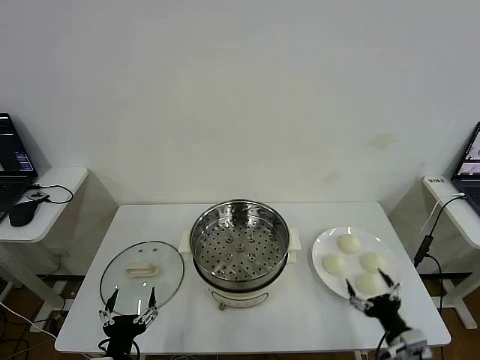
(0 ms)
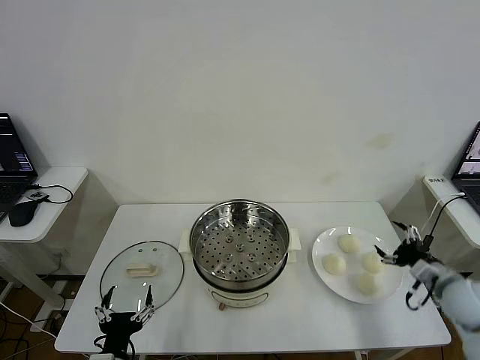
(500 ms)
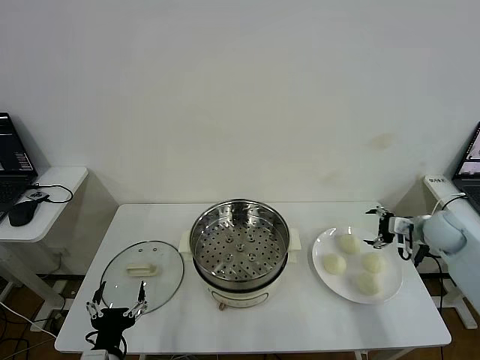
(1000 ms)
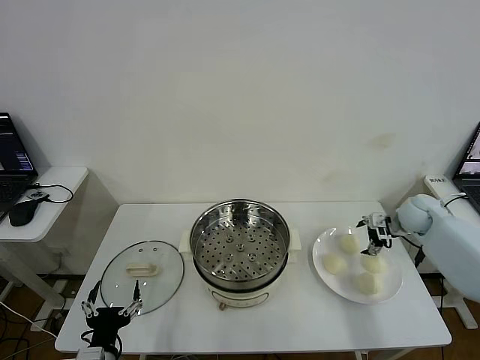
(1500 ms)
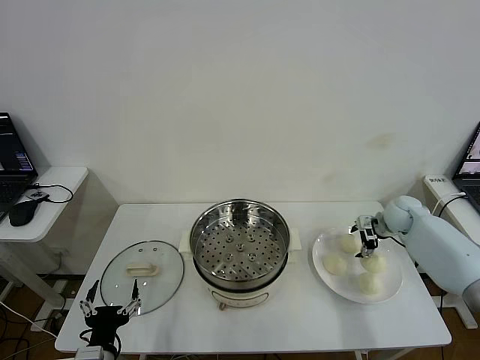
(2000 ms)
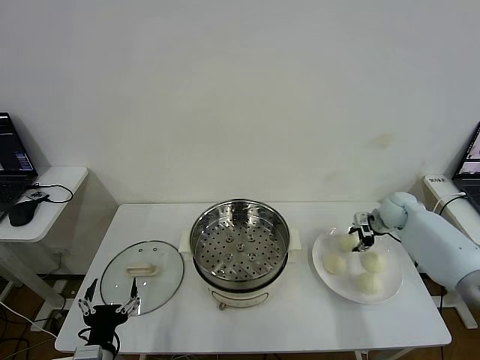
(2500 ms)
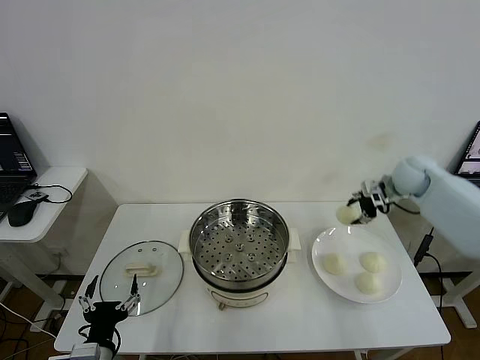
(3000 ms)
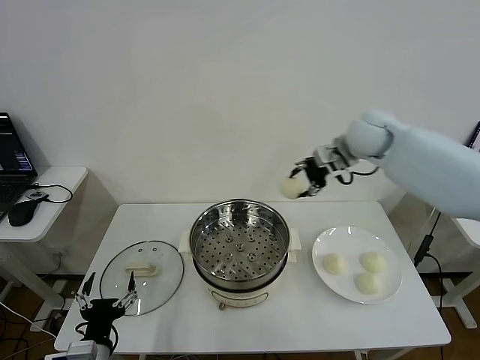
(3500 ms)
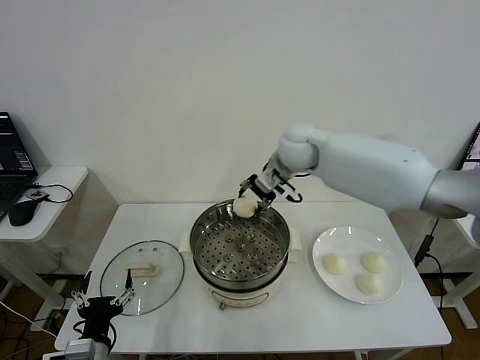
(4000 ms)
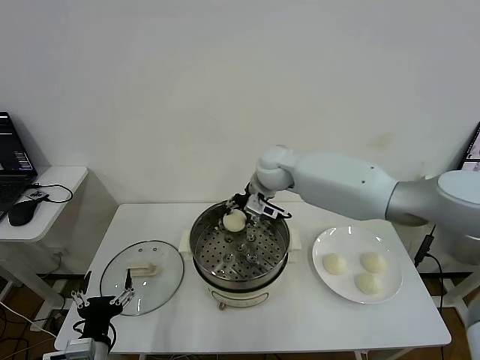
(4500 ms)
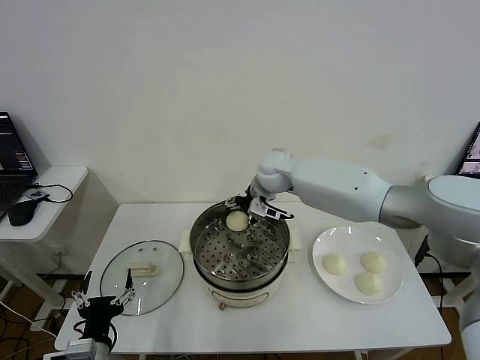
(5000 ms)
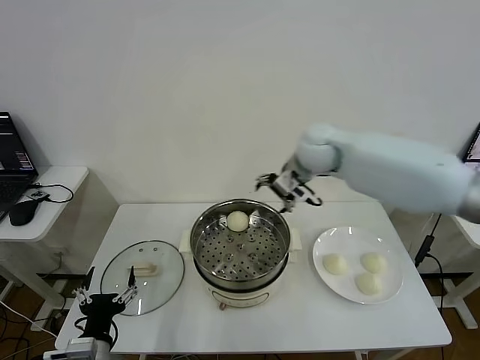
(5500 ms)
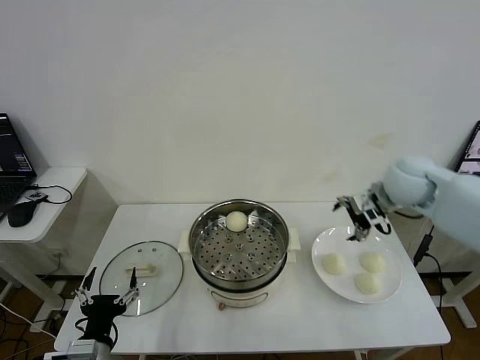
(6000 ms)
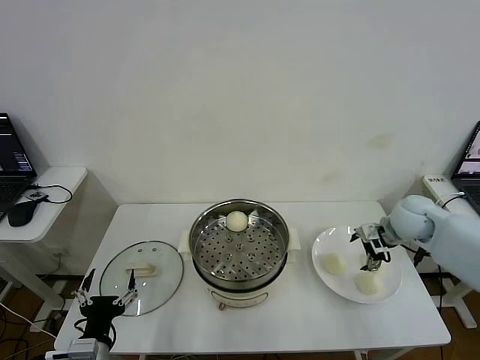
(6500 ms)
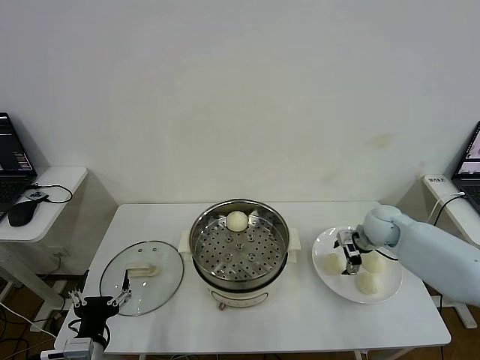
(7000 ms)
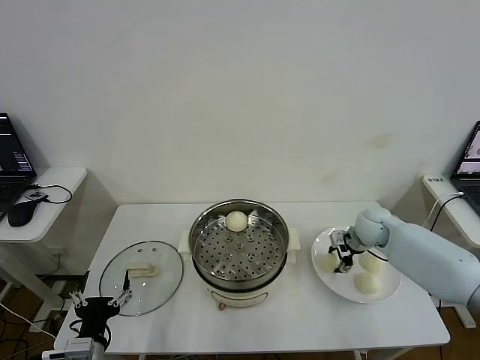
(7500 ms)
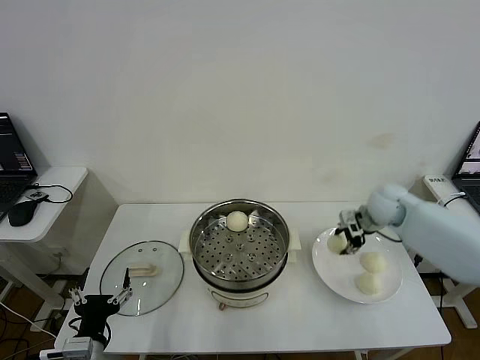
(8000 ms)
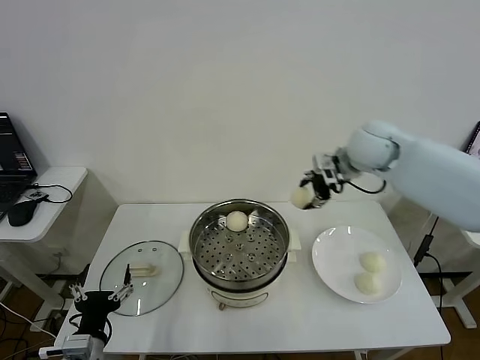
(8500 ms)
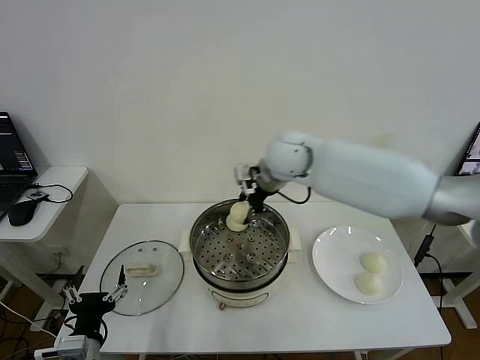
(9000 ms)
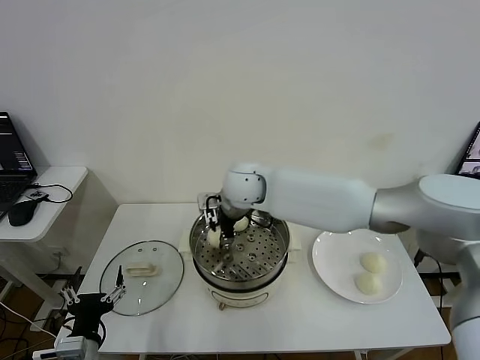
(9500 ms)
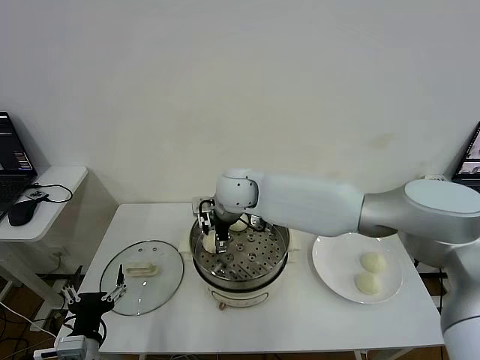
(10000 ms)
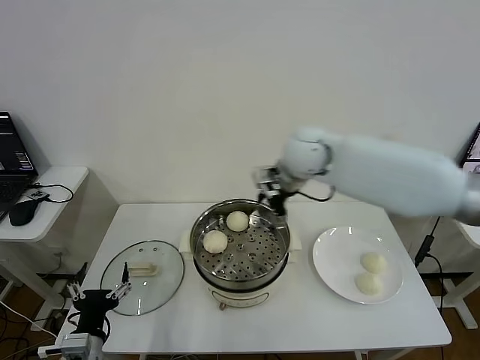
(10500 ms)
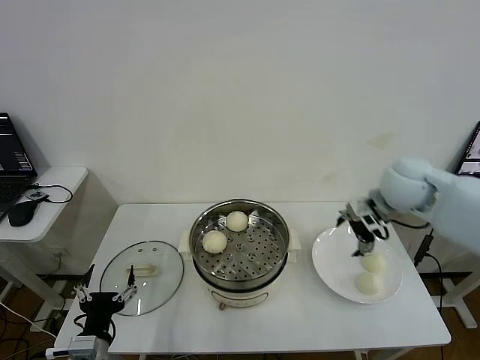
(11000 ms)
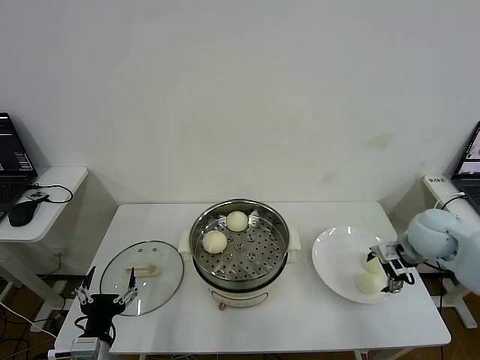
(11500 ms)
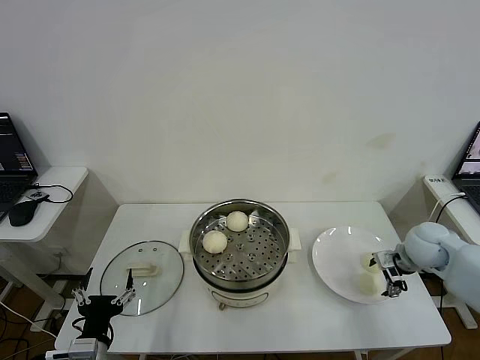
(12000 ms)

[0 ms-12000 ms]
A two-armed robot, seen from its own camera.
Step, 0 ms to 2000 ms: Grasp the baozi in the plate with right gripper.
Step, 2500 ms to 5000 ms: Place the baozi on the steamer with right gripper.
Step, 5500 ms to 7500 ms: Grasp the baozi in the plate with right gripper.
Step, 8000 ms to 9500 ms: Place the baozi on the steamer with right gripper.
2000 ms to 4000 ms: The right gripper goes approximately 35 cm to the left and upward, and closes.
4000 ms to 6000 ms: The right gripper heads to the right, covering about 20 cm, and opens its fingers.
6000 ms to 8000 ms: The right gripper moves downward, some 10 cm, and closes its fingers.
8000 ms to 10000 ms: The right gripper goes roughly 35 cm to the left, and opens up.
10000 ms to 12000 ms: The right gripper goes approximately 40 cm to the right.

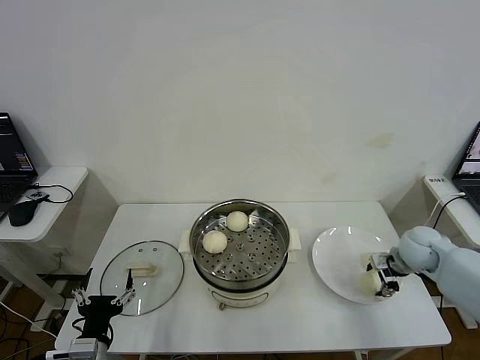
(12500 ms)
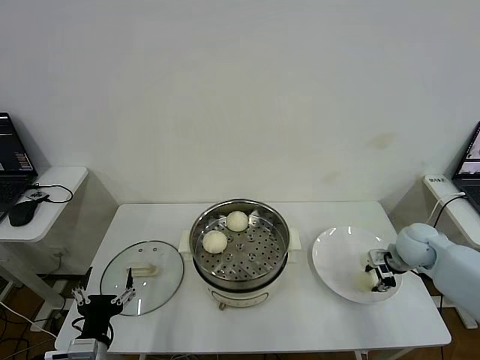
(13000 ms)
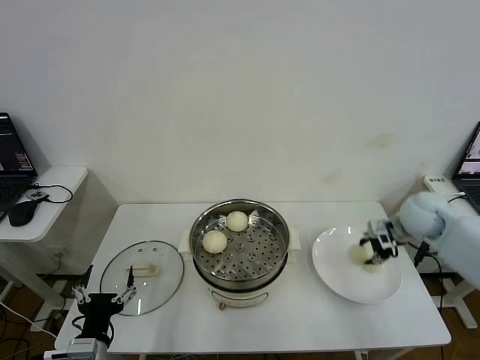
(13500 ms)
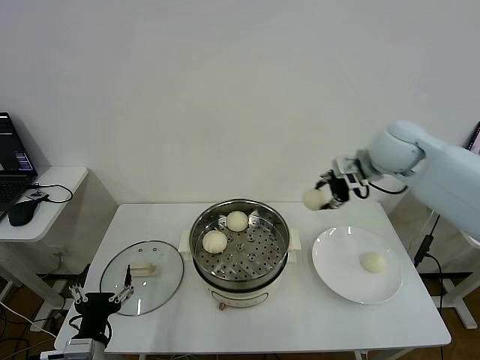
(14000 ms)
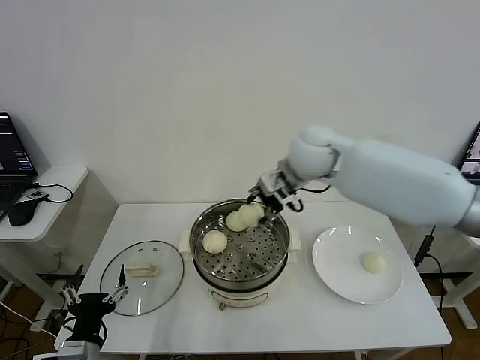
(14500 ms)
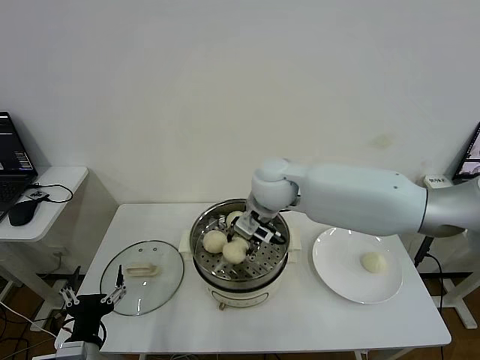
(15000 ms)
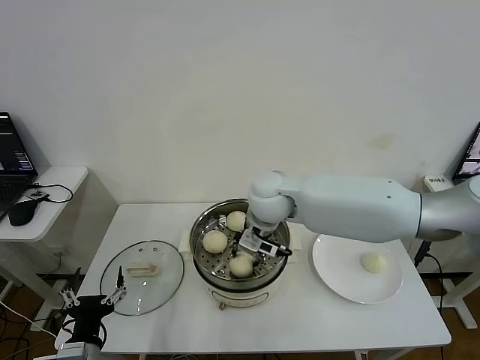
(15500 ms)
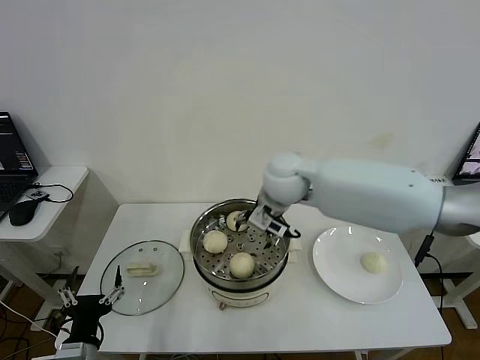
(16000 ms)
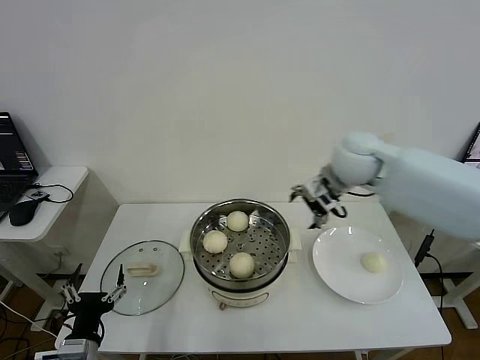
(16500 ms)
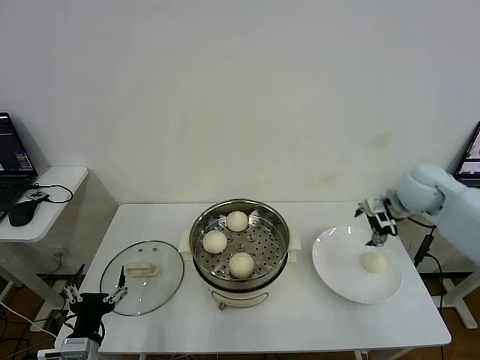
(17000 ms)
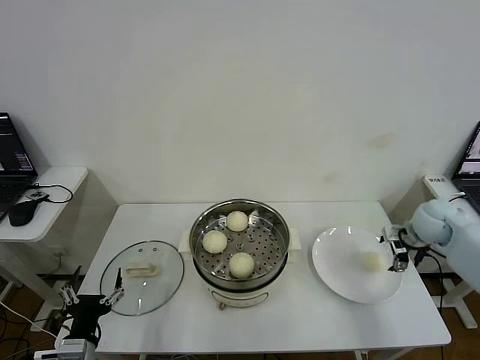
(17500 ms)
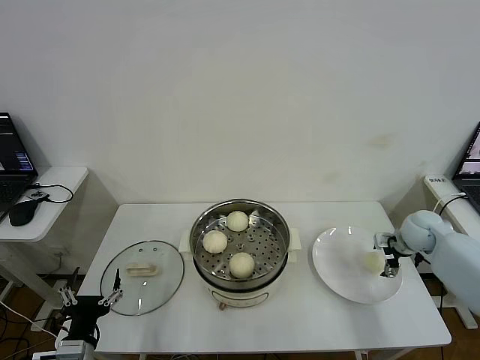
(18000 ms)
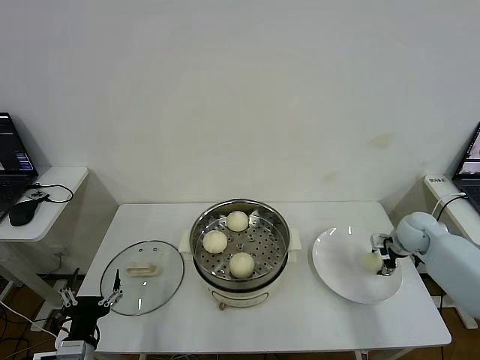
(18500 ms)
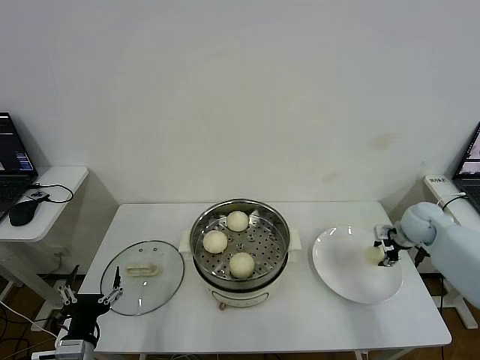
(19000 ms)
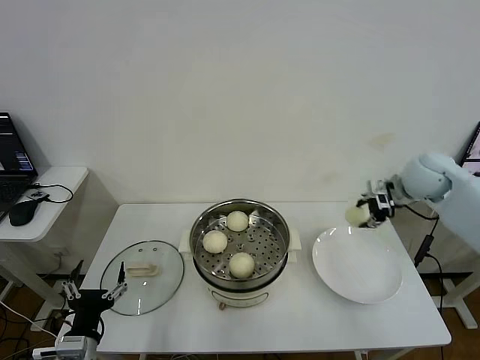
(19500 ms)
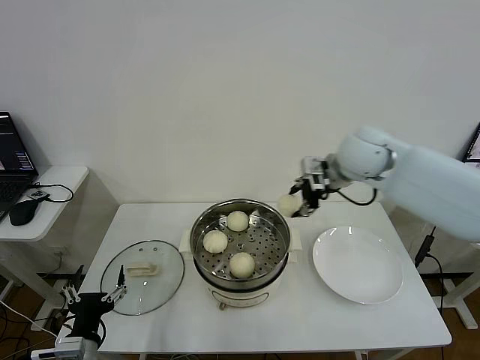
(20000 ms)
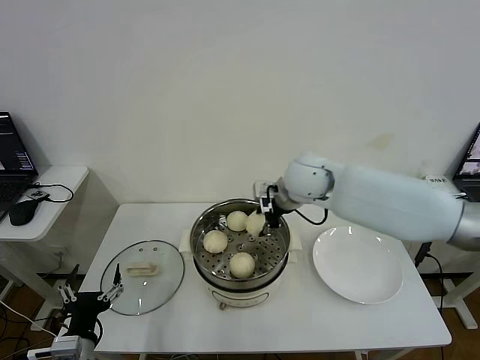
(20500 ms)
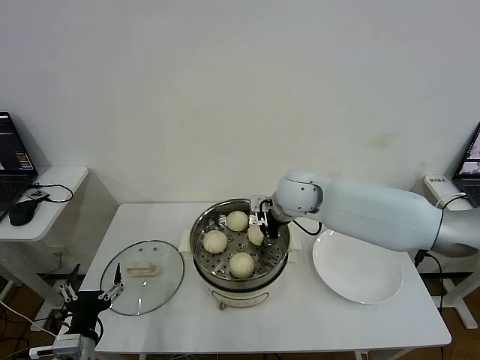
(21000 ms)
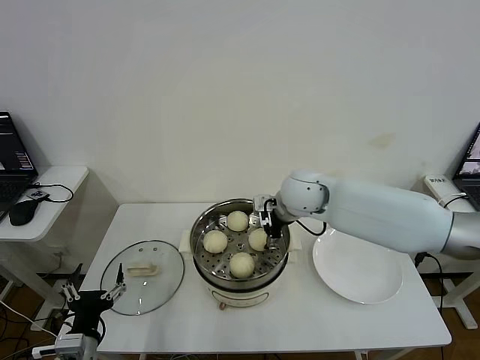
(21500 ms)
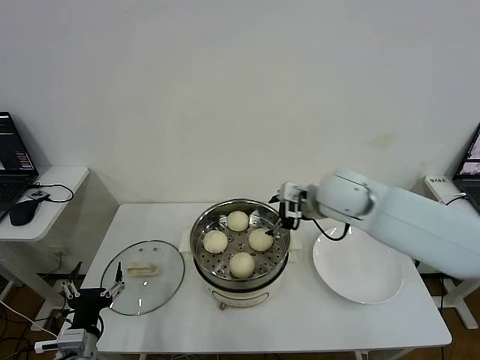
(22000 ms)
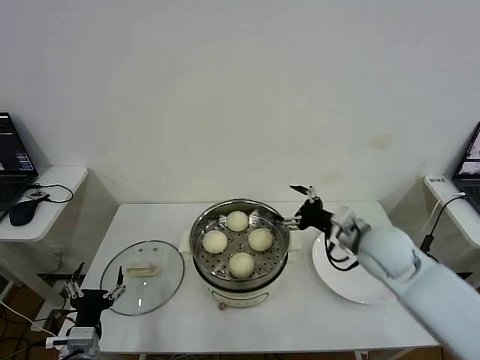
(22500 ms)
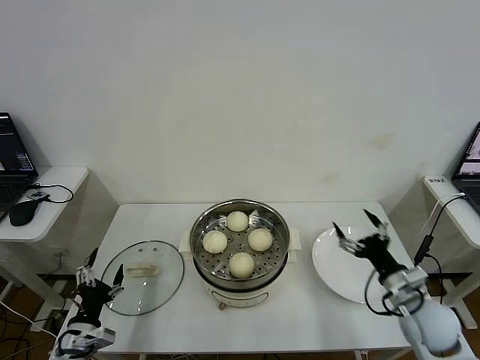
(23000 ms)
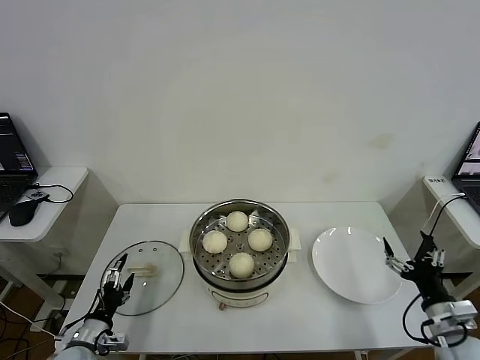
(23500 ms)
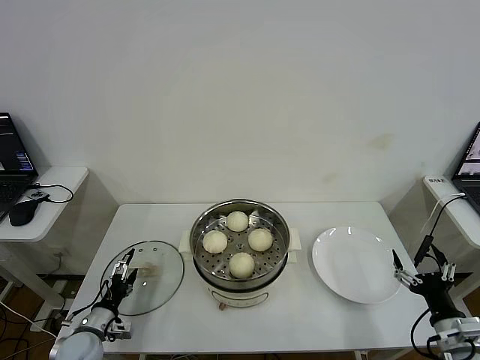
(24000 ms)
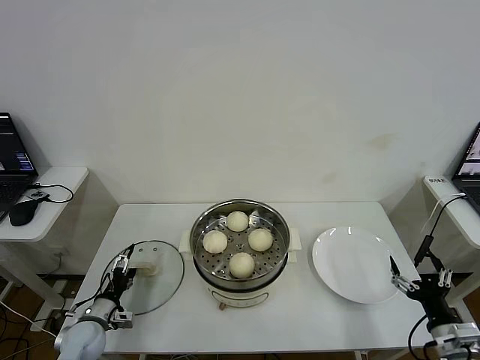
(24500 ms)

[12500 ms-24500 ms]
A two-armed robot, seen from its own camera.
Step, 13500 ms to 15500 ms: Place the baozi on the steamer with right gripper.
Step, 16000 ms to 18500 ms: Grasp the baozi in the plate with right gripper.
Step, 19000 ms to 21500 ms: Place the baozi on the steamer with right gripper.
12500 ms to 14500 ms: The right gripper is displaced to the left and upward by some 35 cm, and closes its fingers.
14500 ms to 16500 ms: The right gripper goes approximately 10 cm to the right, and opens its fingers.
16500 ms to 18500 ms: The right gripper goes about 30 cm to the right and downward, and closes.
18500 ms to 20500 ms: The right gripper travels to the left and upward by about 35 cm.
20500 ms to 22500 ms: The right gripper travels to the right, backward and downward by some 20 cm, and opens.
22500 ms to 24500 ms: The left gripper moves forward, downward and to the left, roughly 15 cm. Meanwhile the right gripper moves backward, to the right and downward, about 30 cm.

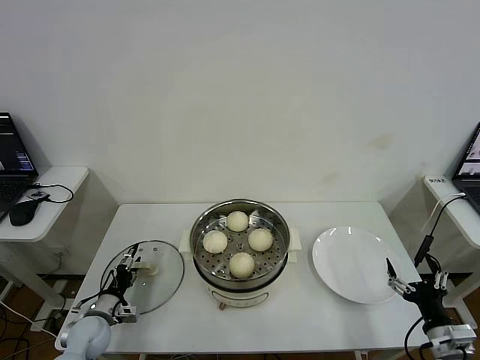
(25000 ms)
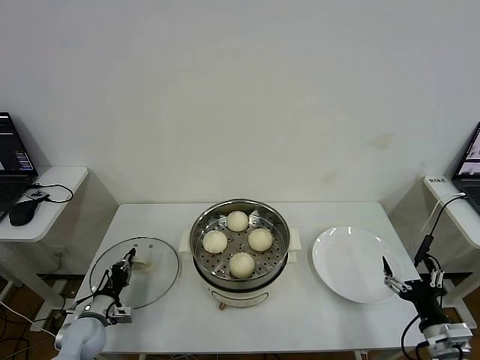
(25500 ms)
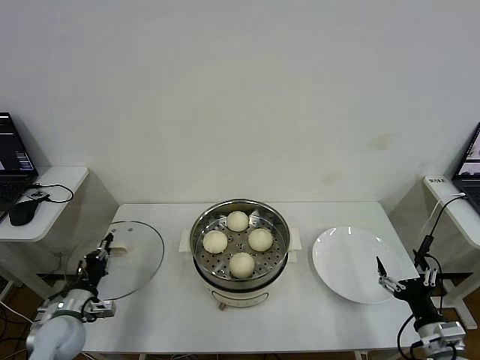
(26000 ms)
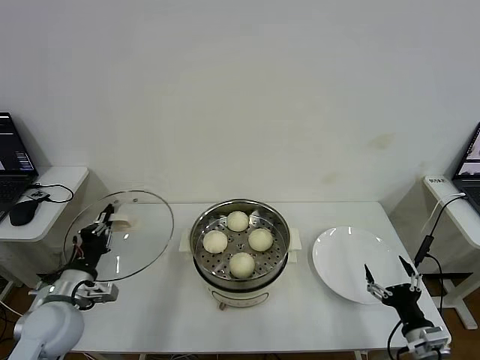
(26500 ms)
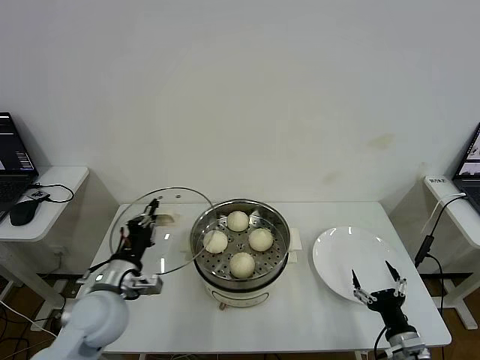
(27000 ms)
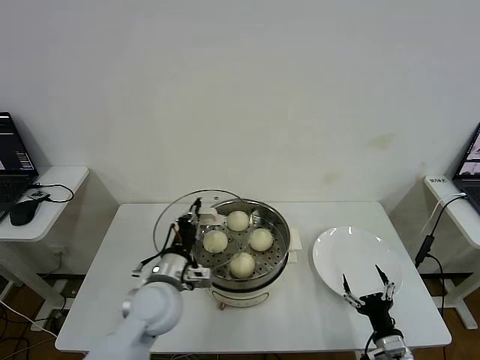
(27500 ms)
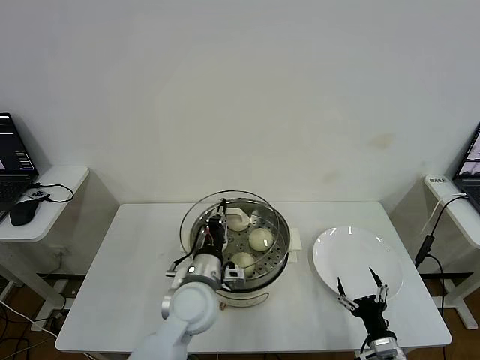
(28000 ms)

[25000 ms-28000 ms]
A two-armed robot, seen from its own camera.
25000 ms to 26500 ms: The left gripper travels upward by some 15 cm, and closes up.
26500 ms to 28000 ms: The left gripper heads to the right, covering approximately 25 cm. Meanwhile the right gripper is displaced to the left and downward by approximately 10 cm.
